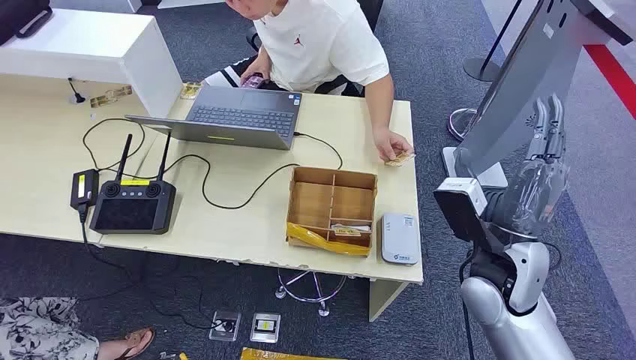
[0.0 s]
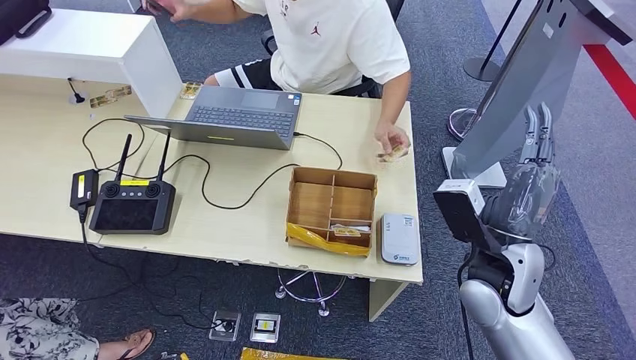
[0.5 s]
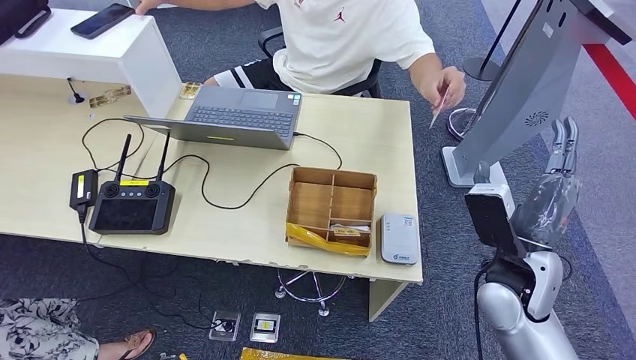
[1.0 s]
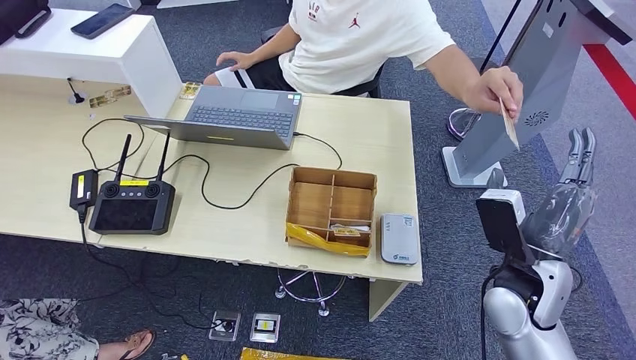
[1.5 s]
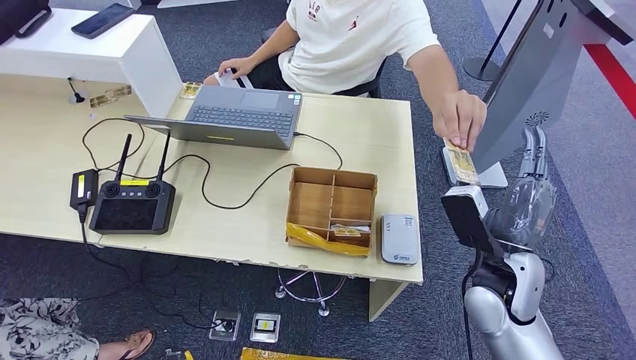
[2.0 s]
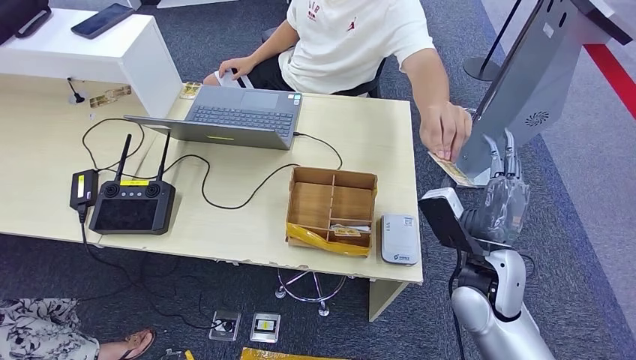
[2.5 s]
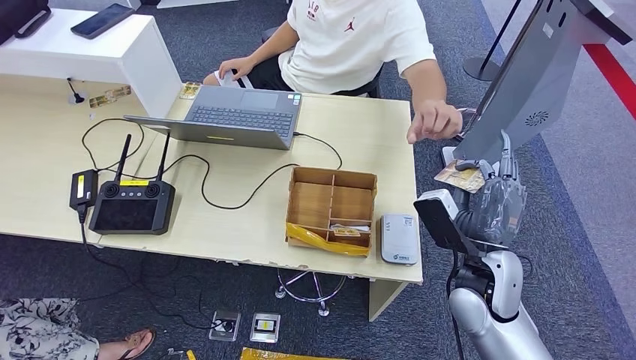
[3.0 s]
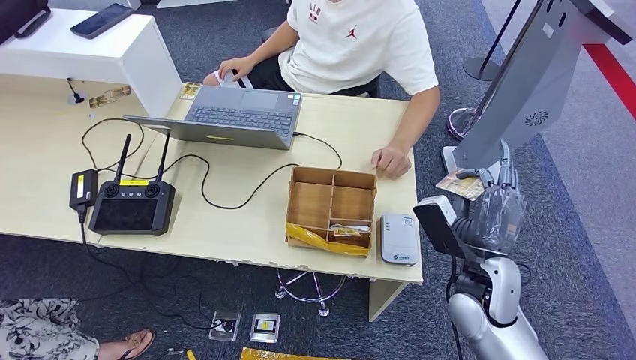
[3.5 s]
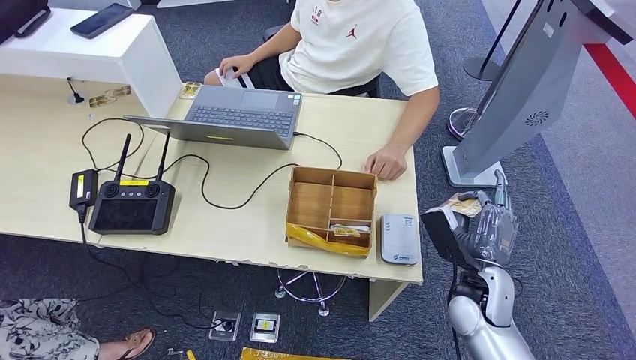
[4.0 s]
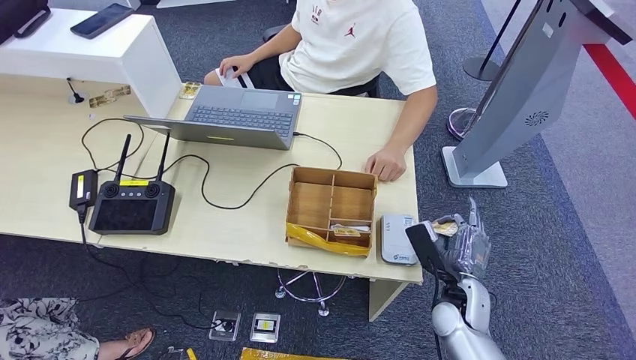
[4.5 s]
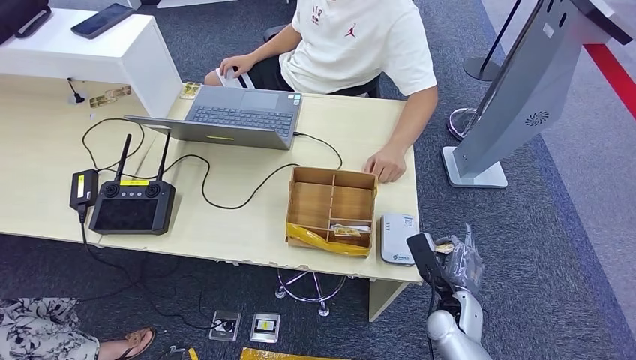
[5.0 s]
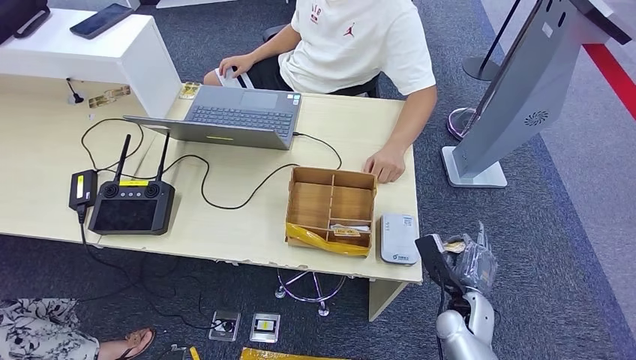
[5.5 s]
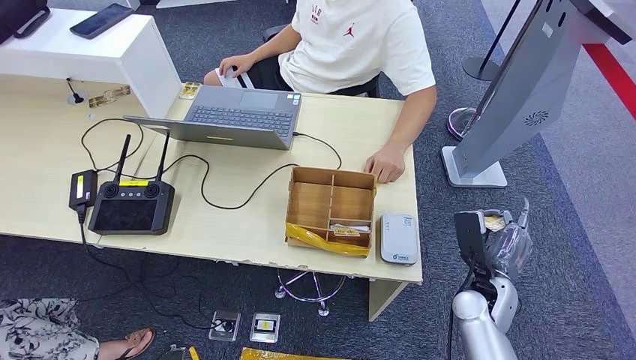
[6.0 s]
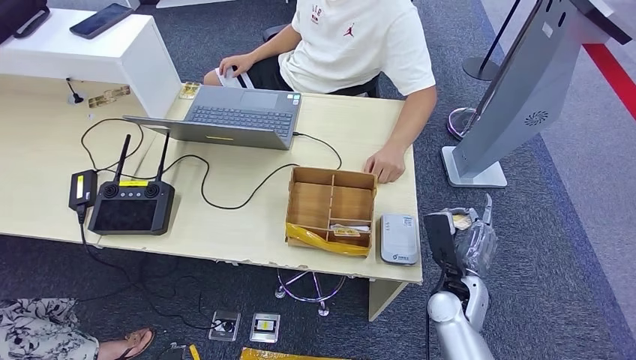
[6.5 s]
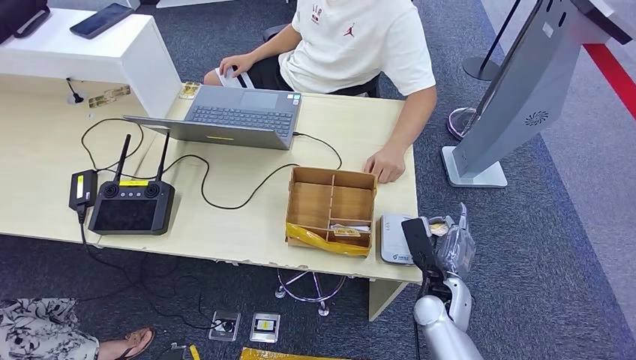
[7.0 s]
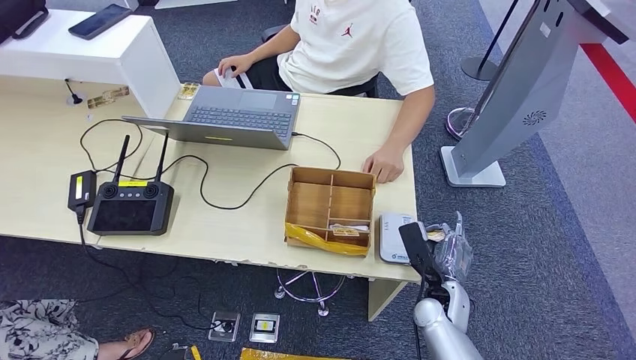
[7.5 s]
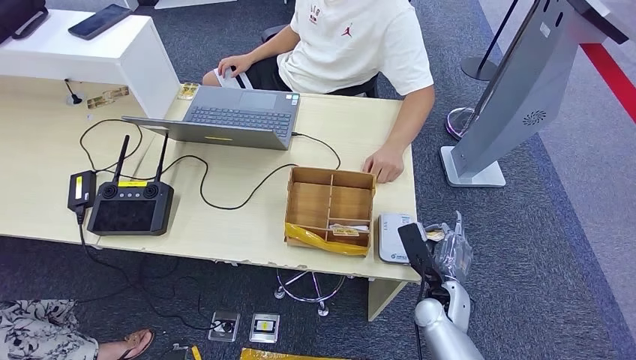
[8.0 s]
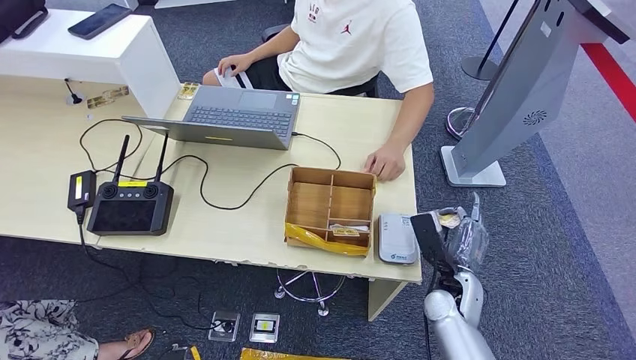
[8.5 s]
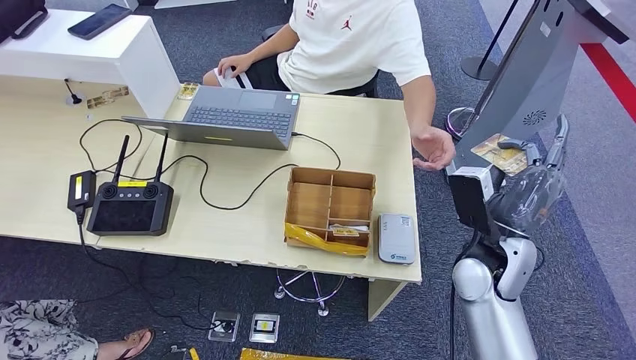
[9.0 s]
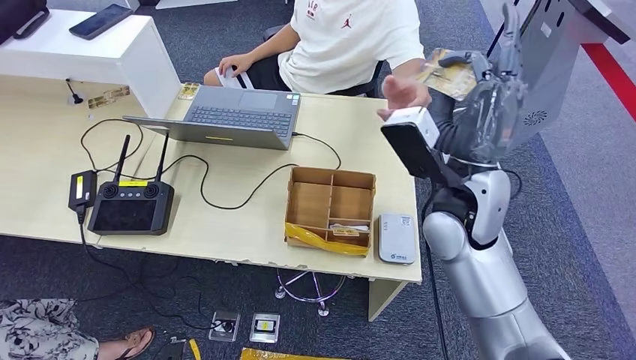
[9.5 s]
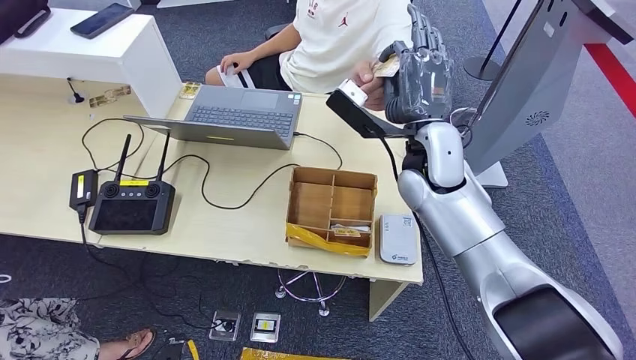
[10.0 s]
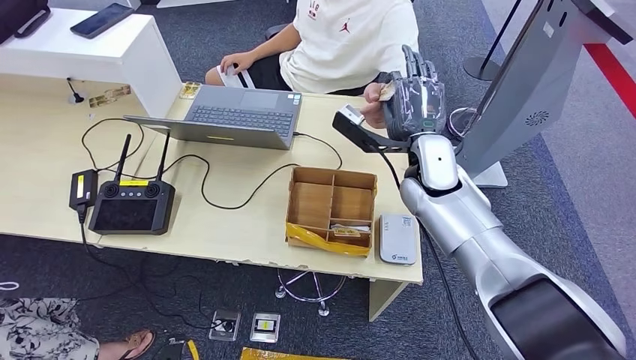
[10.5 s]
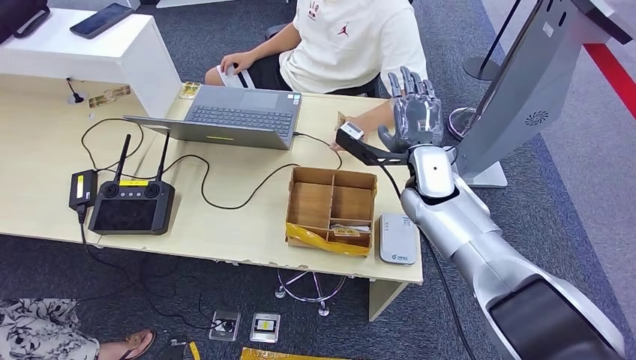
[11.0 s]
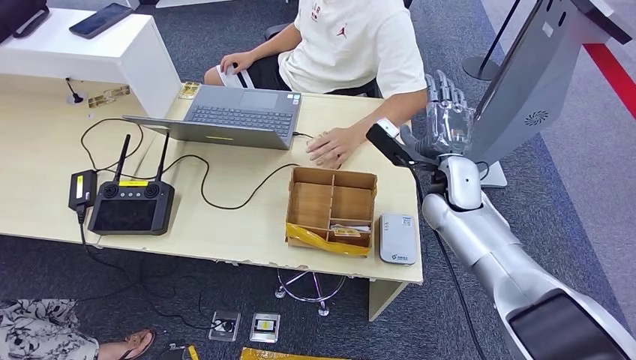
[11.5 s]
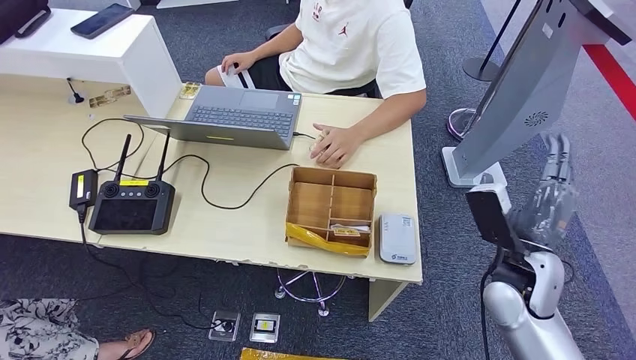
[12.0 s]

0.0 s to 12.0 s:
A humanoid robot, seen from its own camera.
Step, 0.0 to 3.0 s: Take the ID card from the person's hand.
Step, 4.5 to 7.5 s: Place the ID card on the card reader.
Step, 9.5 to 10.5 s: Hand the ID card to the person.
2.0 to 4.0 s: The right hand shifts about 10 cm downward.
6.0 to 8.0 s: The right hand is displaced to the left by approximately 5 cm.
10.0 to 12.0 s: The right hand moves to the right, backward and downward, approximately 25 cm. Meanwhile the left hand is displaced backward by about 5 cm.

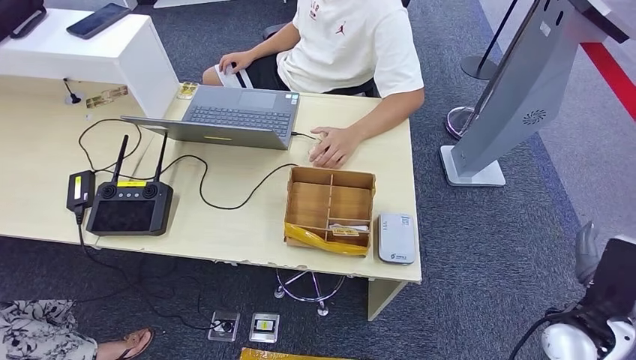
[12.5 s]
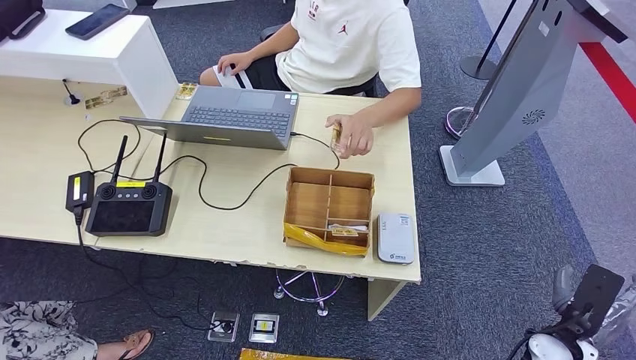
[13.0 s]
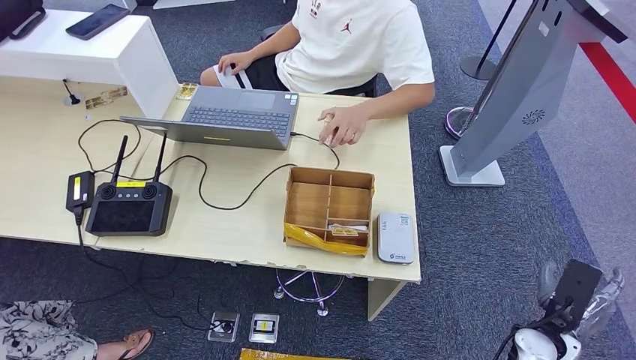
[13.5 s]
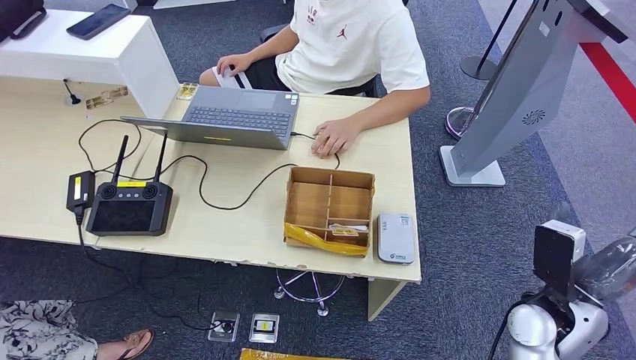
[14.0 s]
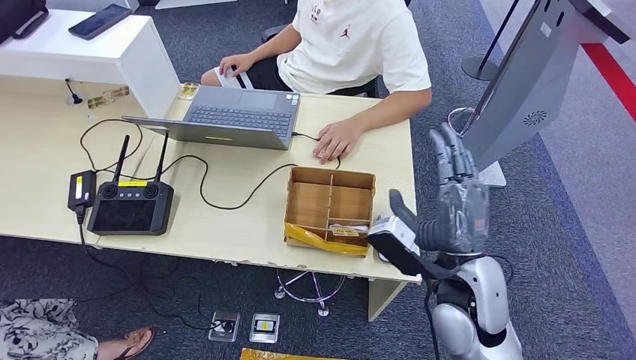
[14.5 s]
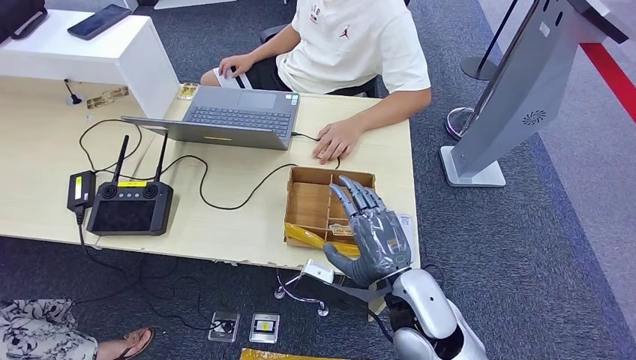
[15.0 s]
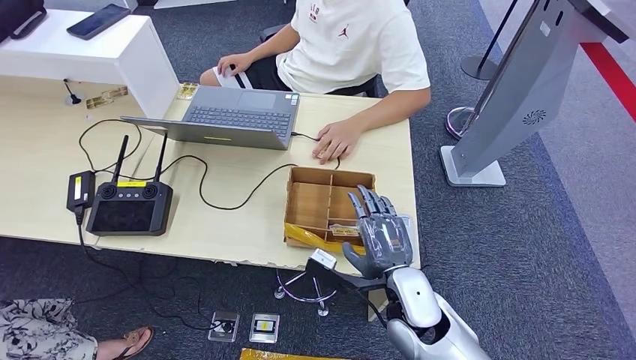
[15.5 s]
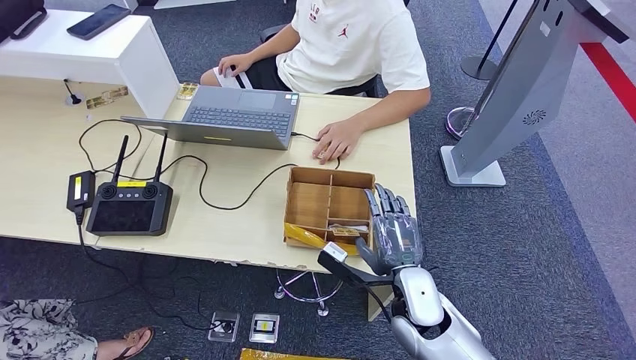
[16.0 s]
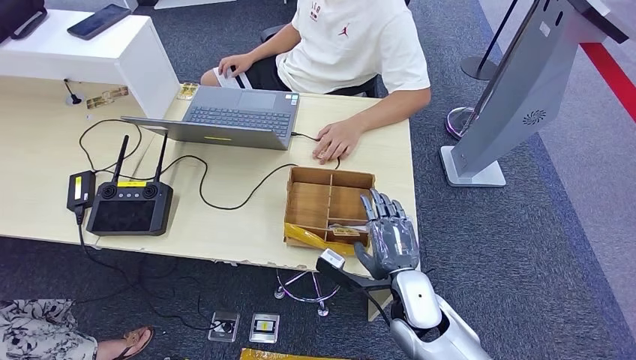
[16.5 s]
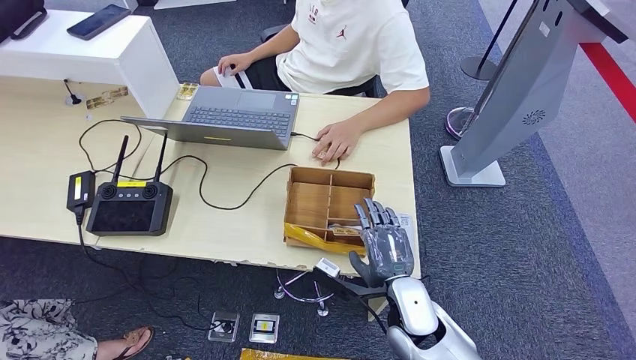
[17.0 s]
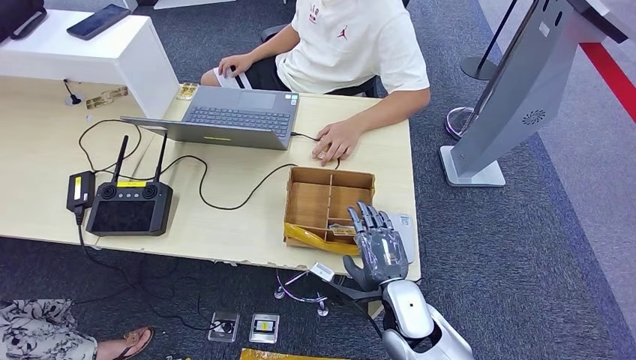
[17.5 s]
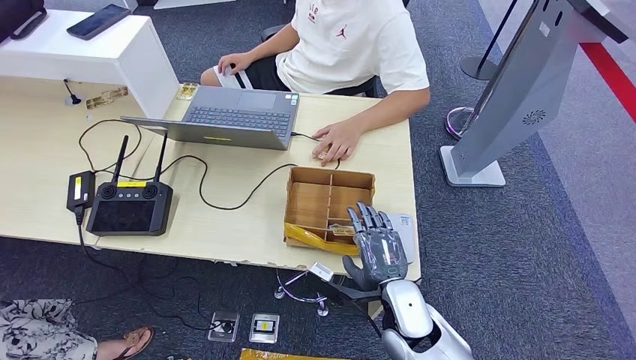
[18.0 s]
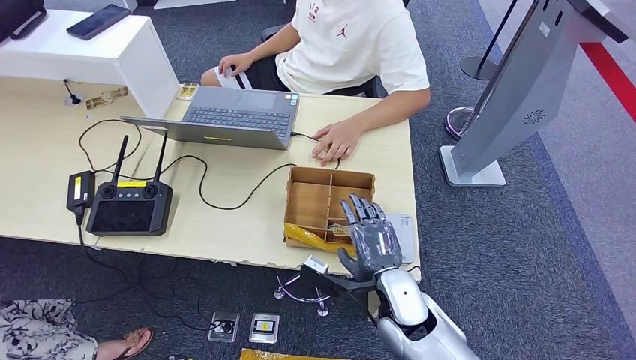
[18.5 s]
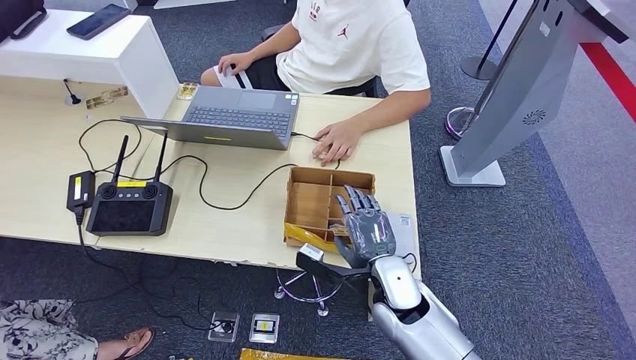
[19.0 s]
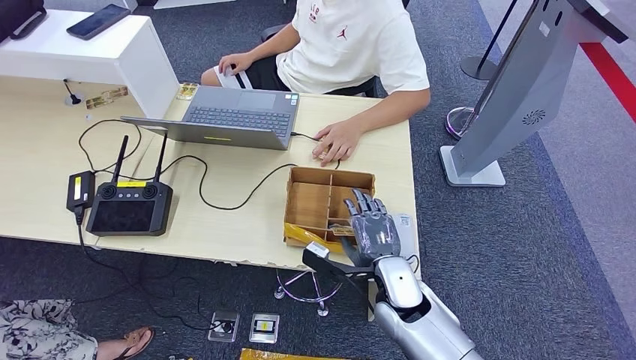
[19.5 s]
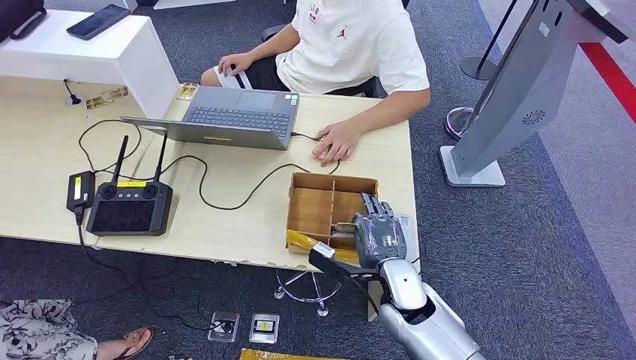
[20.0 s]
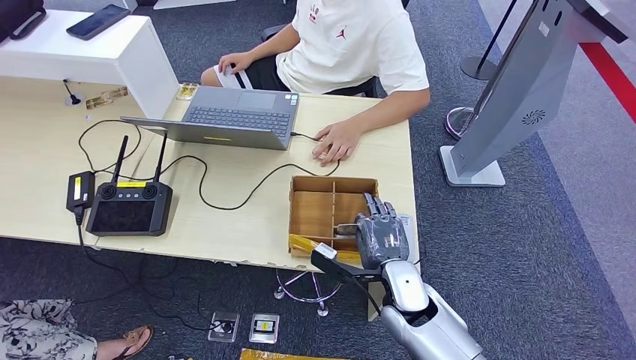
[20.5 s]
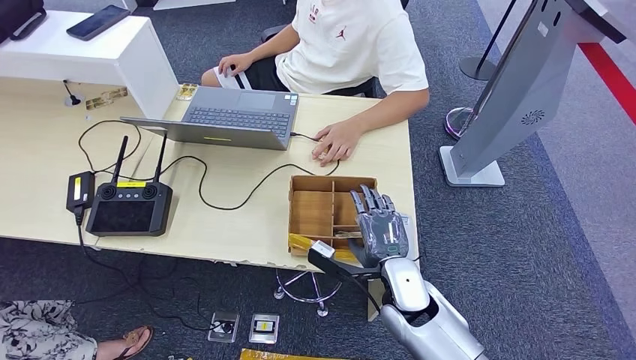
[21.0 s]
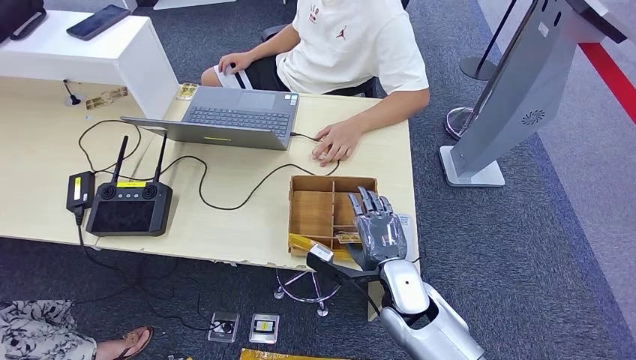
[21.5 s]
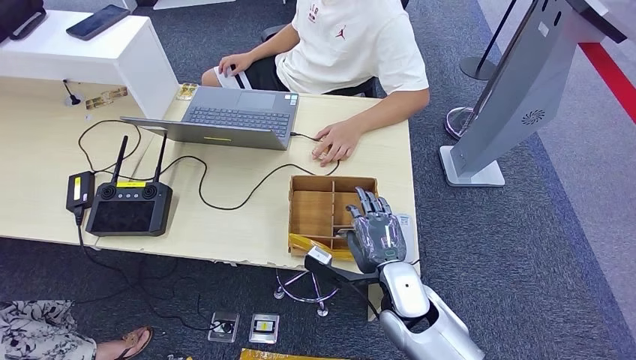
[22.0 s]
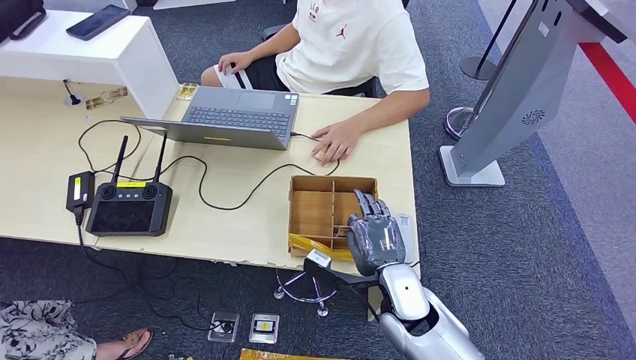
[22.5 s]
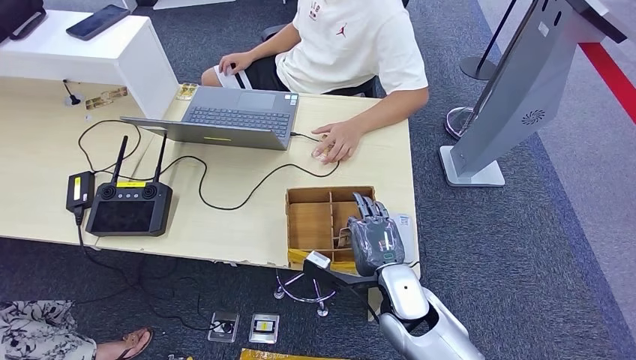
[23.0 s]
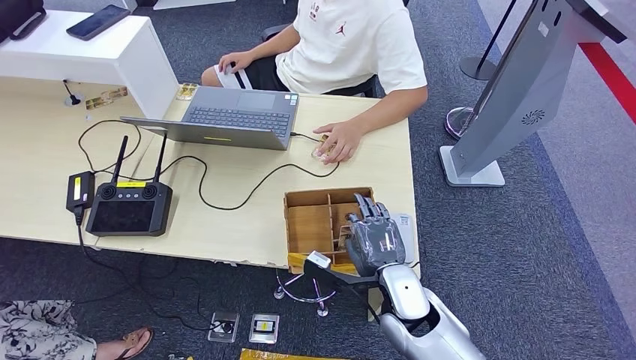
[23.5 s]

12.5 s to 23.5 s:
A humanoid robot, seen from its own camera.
12.5 to 14.5 s: The right hand moves to the left, roughly 20 cm.
14.5 to 16.0 s: The right hand shifts about 10 cm downward.
16.0 to 21.5 s: There are only small adjustments of the hands.
21.5 to 23.5 s: Neither hand changes place.
